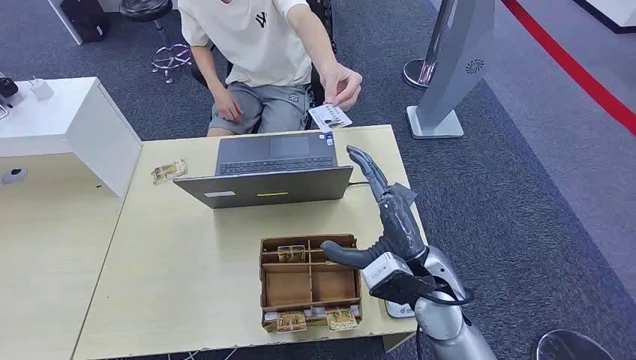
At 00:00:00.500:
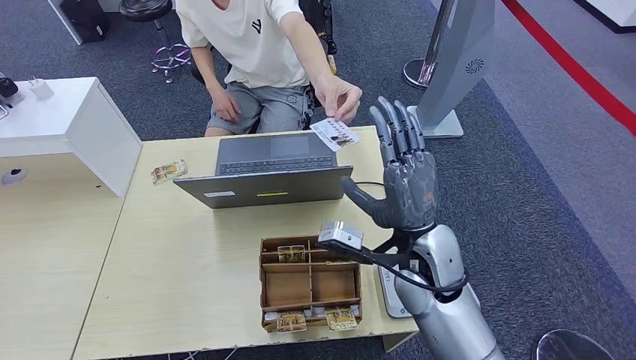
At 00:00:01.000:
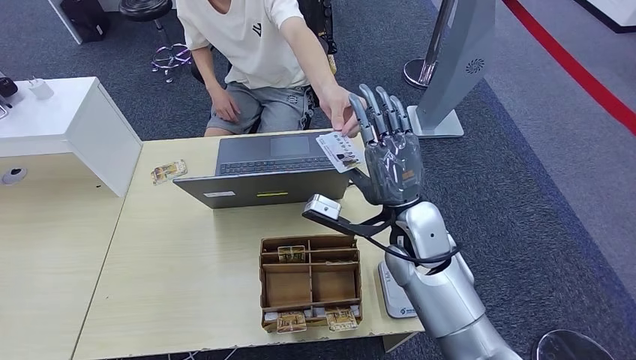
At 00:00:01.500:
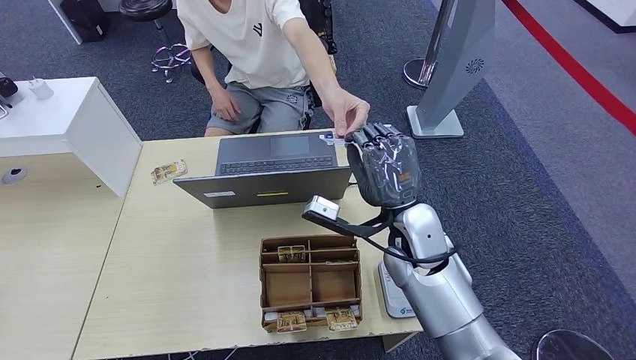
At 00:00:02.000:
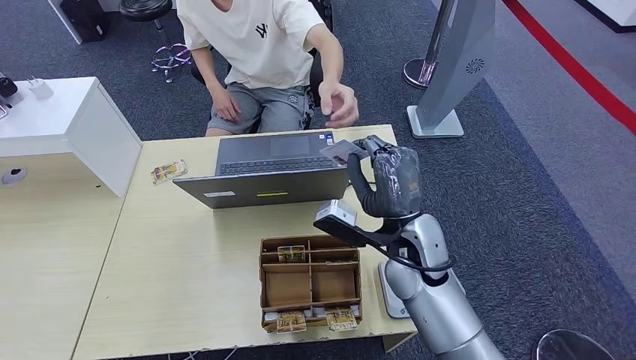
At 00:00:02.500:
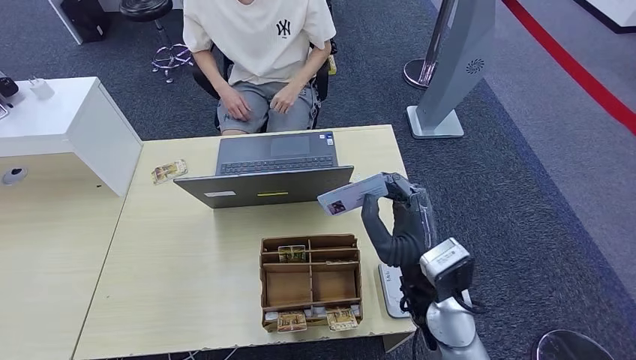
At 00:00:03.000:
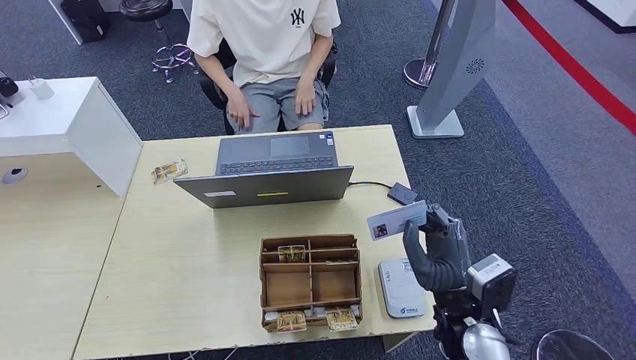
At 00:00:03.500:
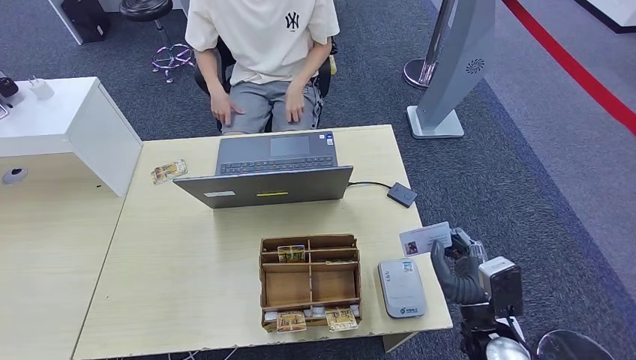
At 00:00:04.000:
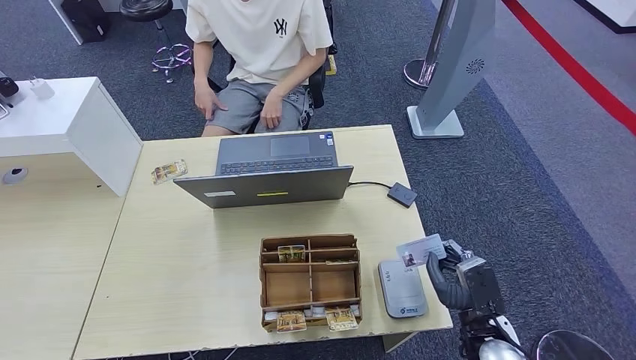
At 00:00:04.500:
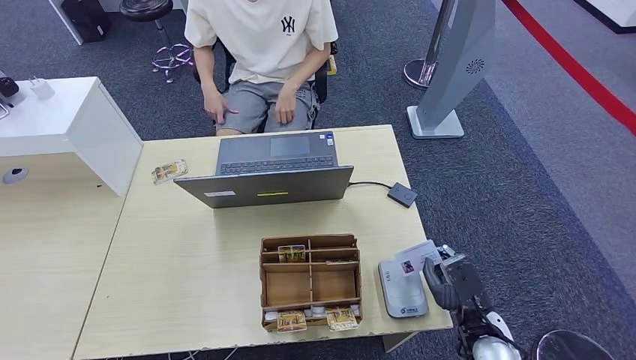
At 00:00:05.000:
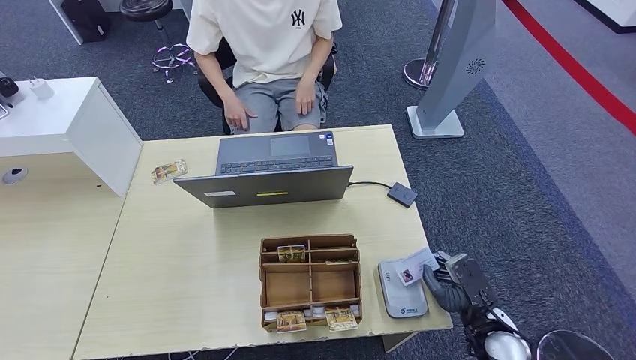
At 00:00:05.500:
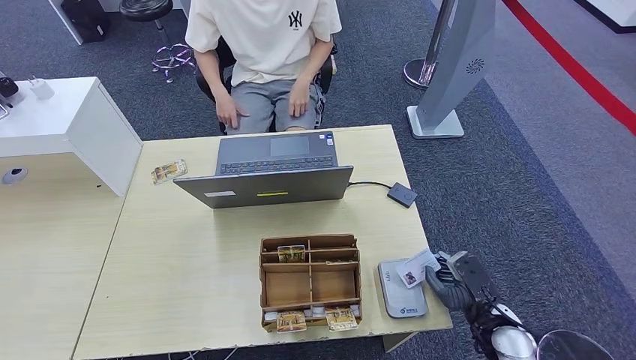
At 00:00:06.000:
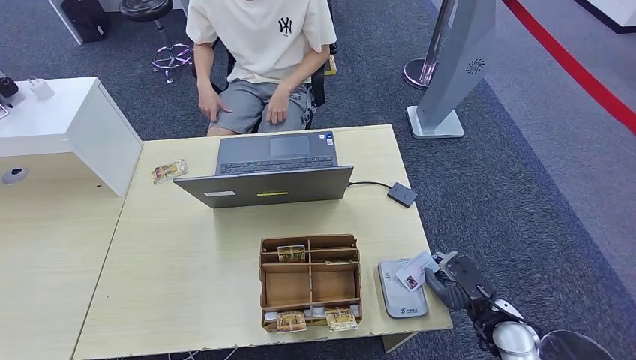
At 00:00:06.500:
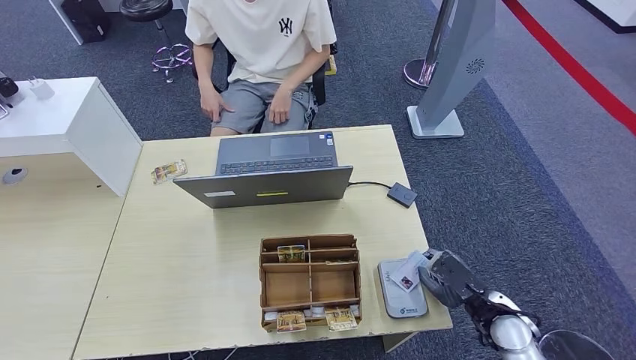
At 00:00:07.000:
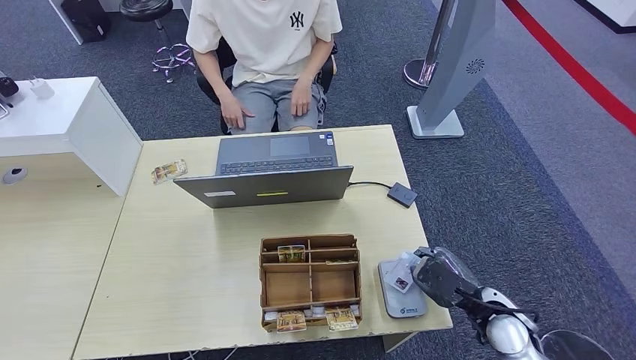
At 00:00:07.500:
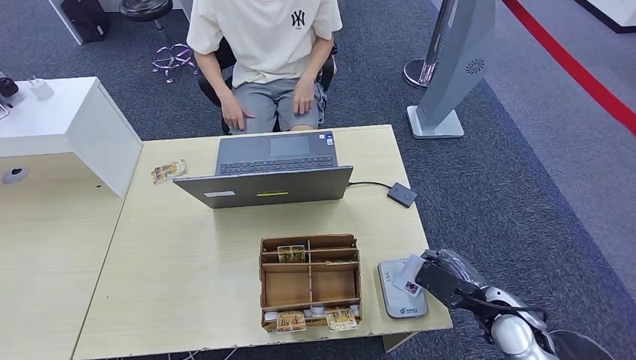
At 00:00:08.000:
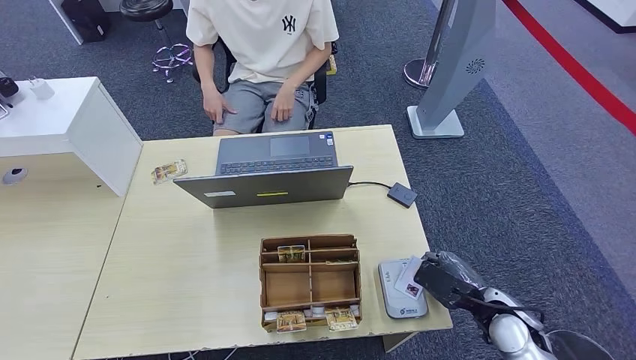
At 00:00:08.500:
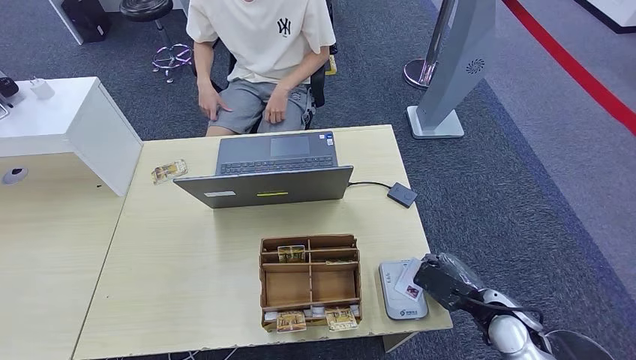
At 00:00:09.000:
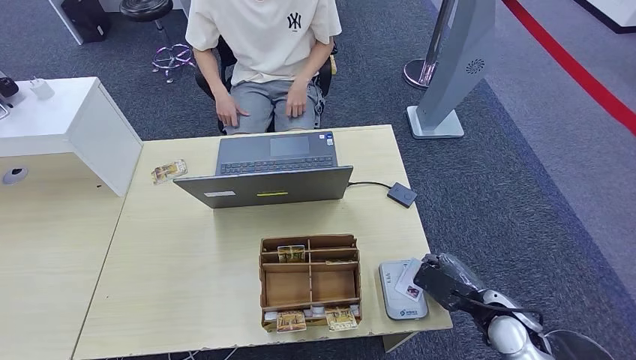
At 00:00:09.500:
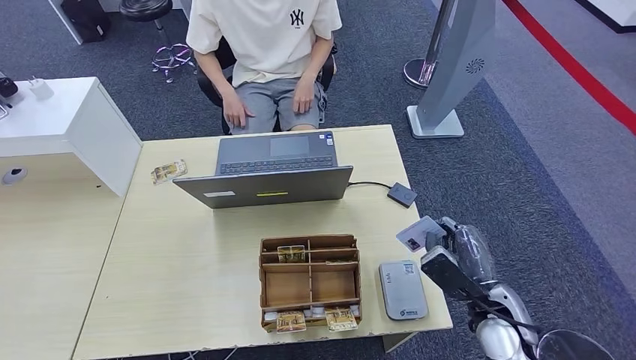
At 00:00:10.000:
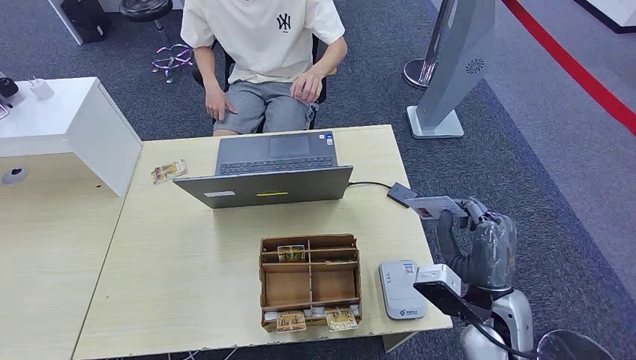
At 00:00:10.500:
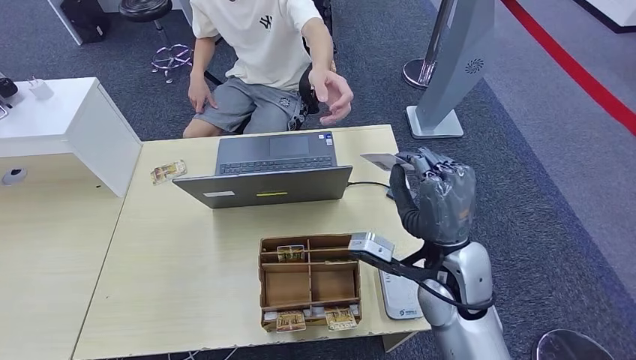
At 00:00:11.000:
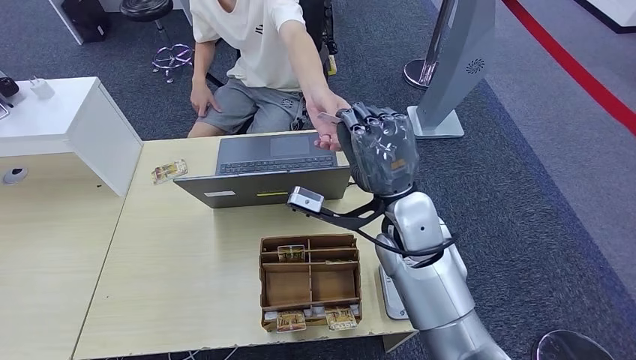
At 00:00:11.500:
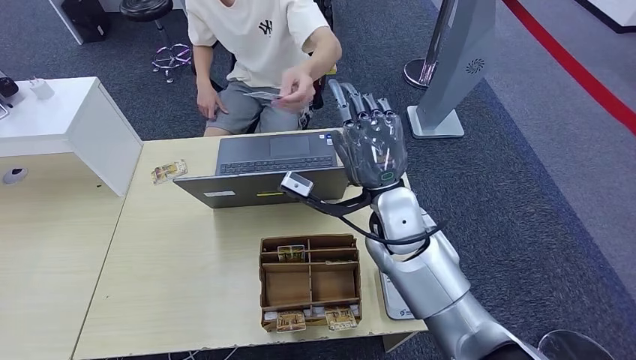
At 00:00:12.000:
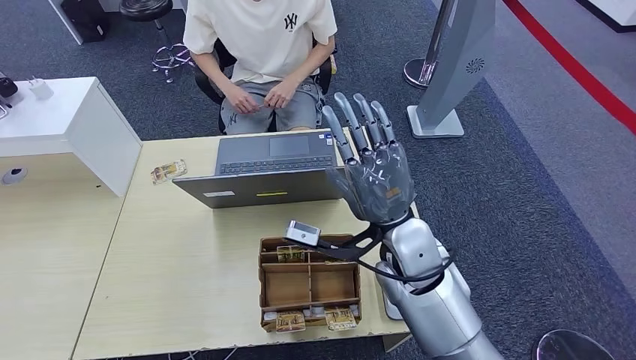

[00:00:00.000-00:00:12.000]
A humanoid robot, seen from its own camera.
Step, 00:00:00.000 to 00:00:02.500: Take the ID card from the person's hand.
Step, 00:00:03.000 to 00:00:10.000: Place the ID card on the card reader.
00:00:02.000 to 00:00:04.000: The right hand is displaced downward, to the right and backward by some 25 cm.
00:00:04.000 to 00:00:06.000: The right hand heads to the right, covering approximately 5 cm.
00:00:08.000 to 00:00:10.000: The right hand moves upward and to the left, roughly 10 cm.
00:00:10.000 to 00:00:12.000: The right hand goes roughly 20 cm to the left, forward and upward.

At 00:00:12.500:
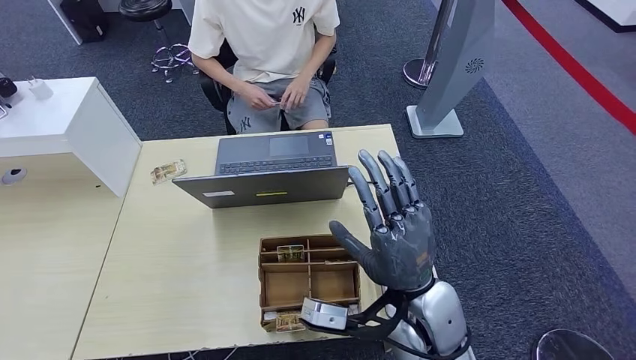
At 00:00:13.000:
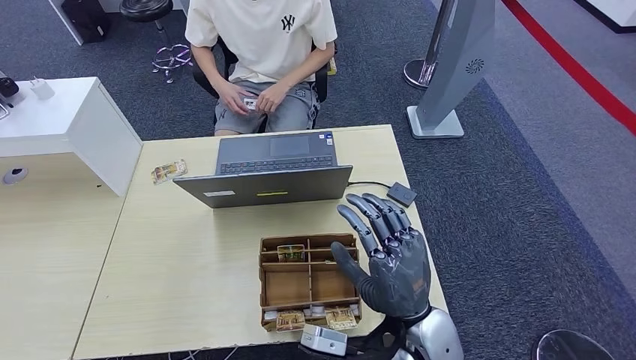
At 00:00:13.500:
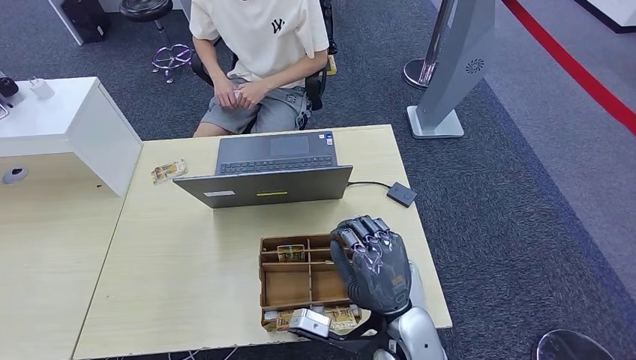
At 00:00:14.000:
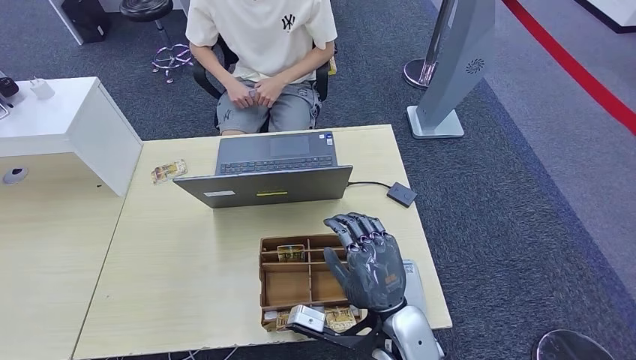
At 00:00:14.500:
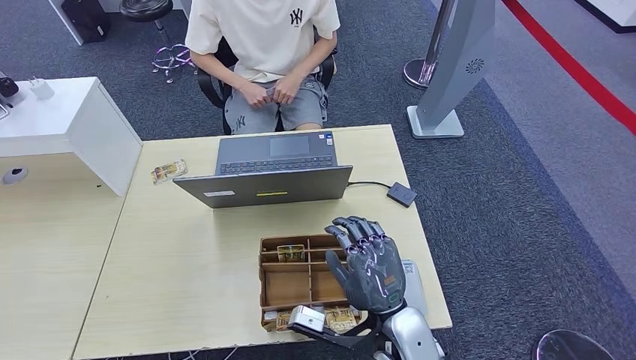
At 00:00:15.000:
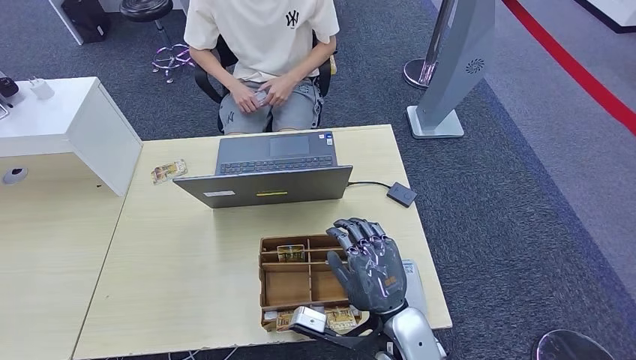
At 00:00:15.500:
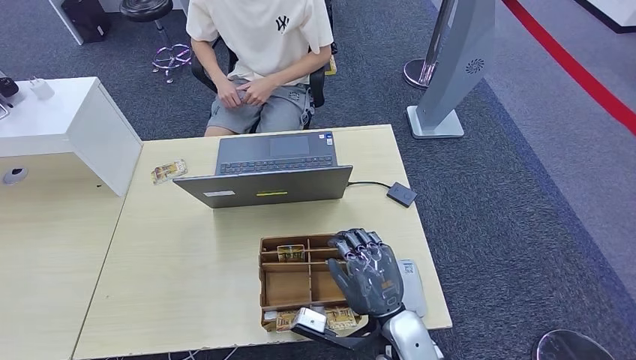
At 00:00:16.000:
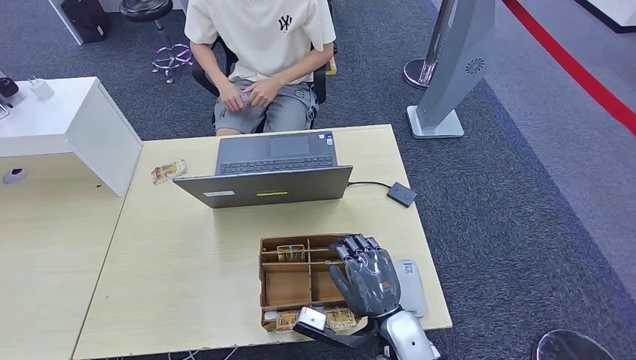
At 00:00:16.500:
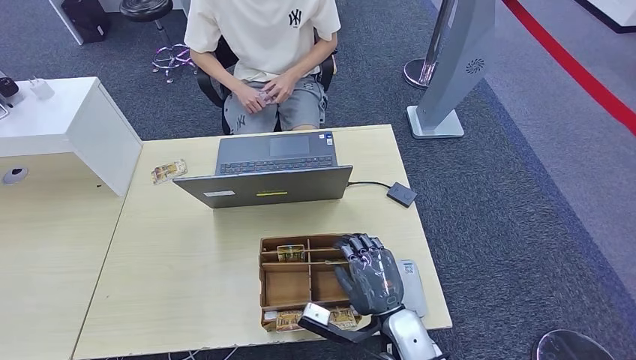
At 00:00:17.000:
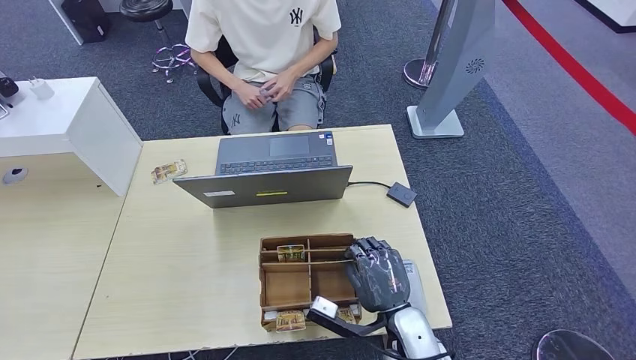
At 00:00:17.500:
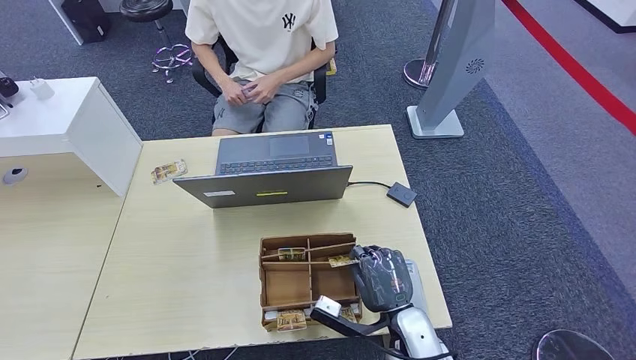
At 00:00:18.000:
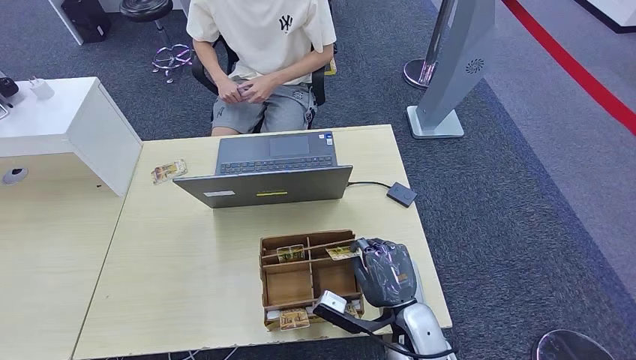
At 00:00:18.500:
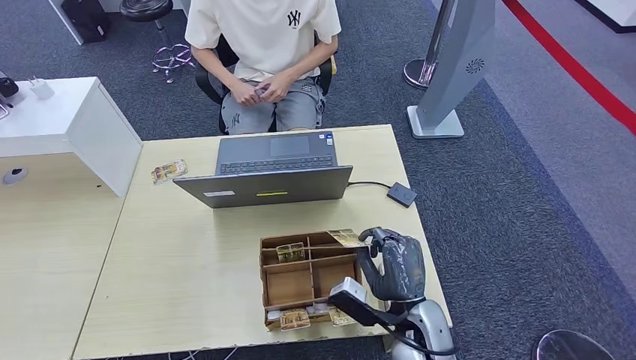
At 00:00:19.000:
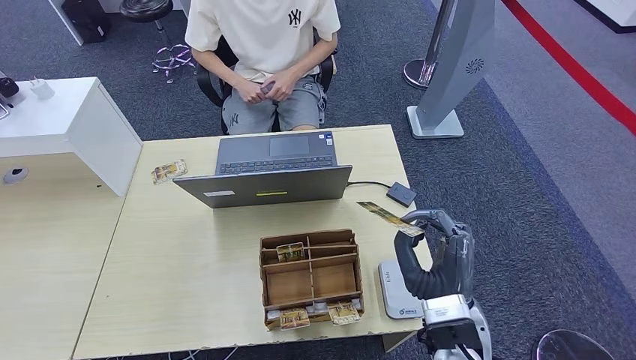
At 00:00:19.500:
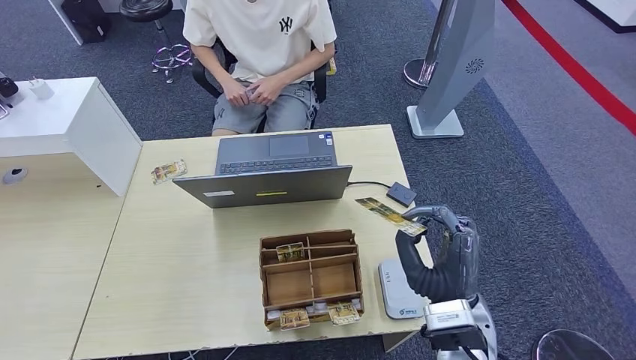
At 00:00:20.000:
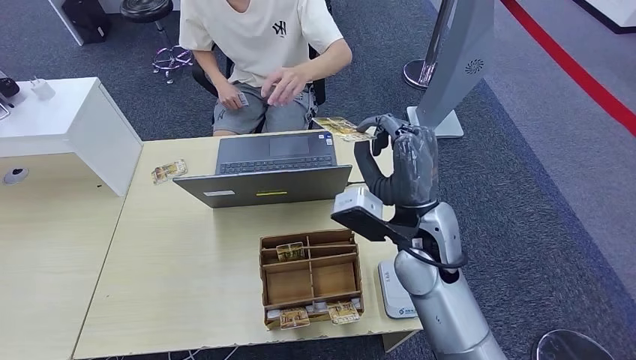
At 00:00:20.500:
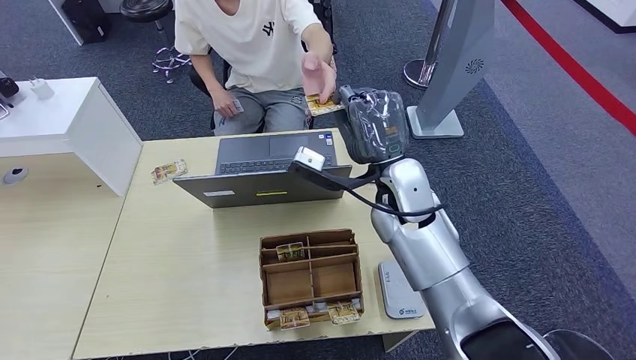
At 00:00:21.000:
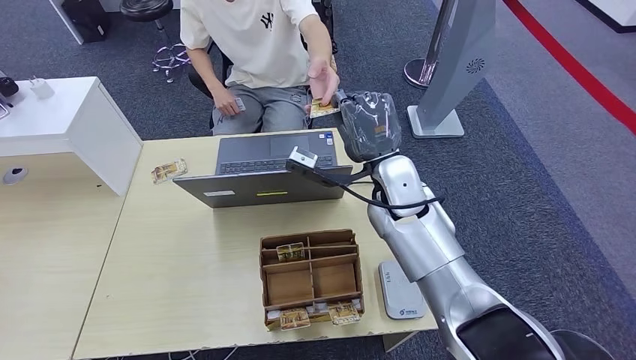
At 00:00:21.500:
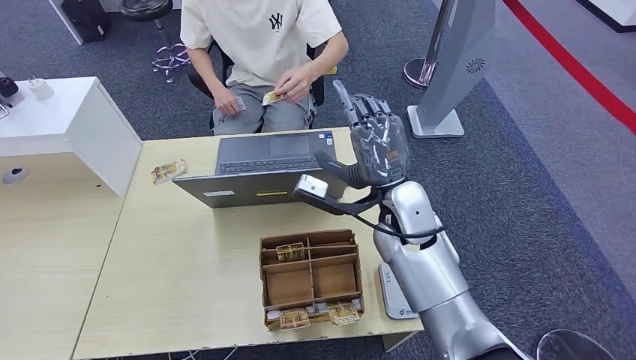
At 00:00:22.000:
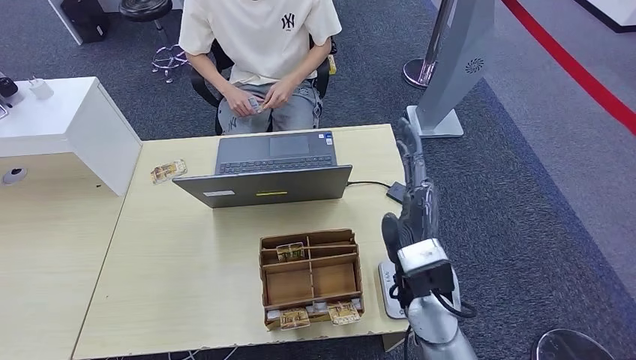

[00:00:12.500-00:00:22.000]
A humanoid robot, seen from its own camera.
Step, 00:00:17.000 to 00:00:19.500: Pick up the room key from the key card box.
Step, 00:00:20.000 to 00:00:22.000: Hand the room key to the person.
00:00:12.500 to 00:00:14.500: The right hand heads downward, covering approximately 10 cm.
00:00:14.500 to 00:00:16.500: The right hand goes roughly 5 cm downward.
00:00:16.500 to 00:00:18.000: The hands move only a little.
00:00:18.000 to 00:00:20.000: The right hand moves upward and forward, some 20 cm.
00:00:20.000 to 00:00:22.000: The right hand travels backward by roughly 5 cm.
